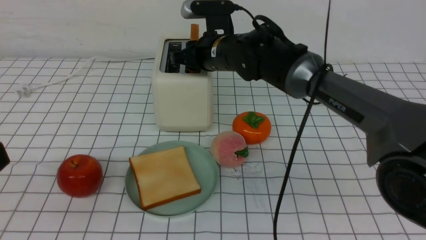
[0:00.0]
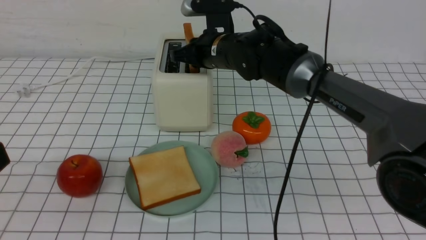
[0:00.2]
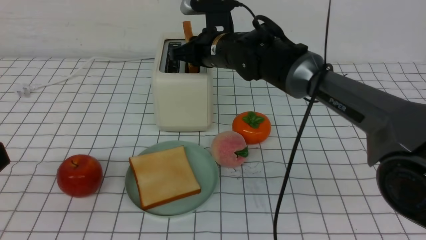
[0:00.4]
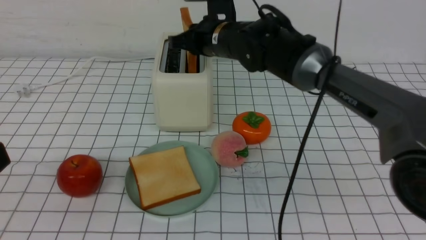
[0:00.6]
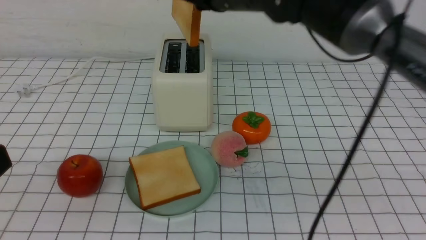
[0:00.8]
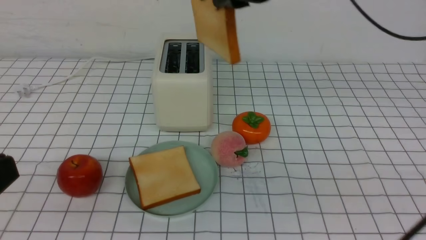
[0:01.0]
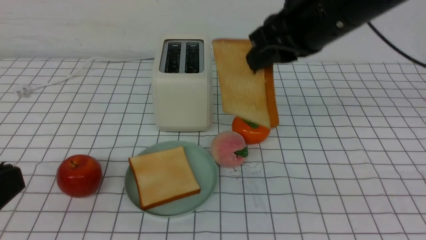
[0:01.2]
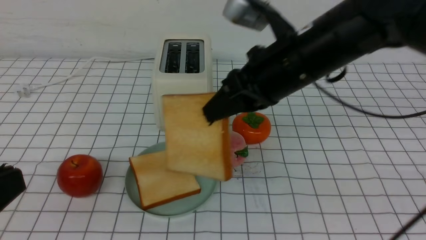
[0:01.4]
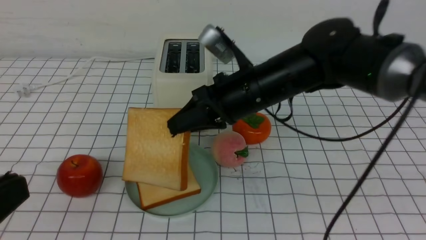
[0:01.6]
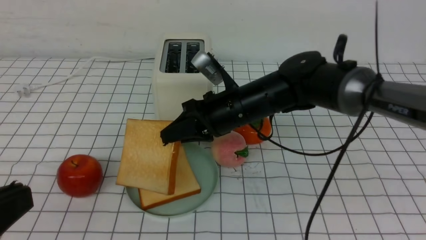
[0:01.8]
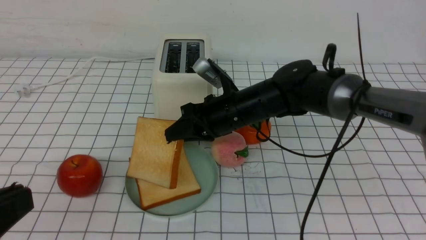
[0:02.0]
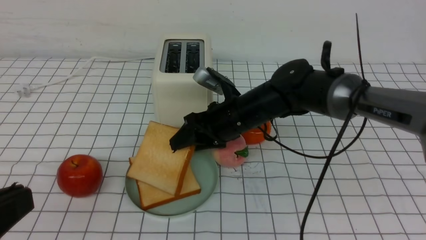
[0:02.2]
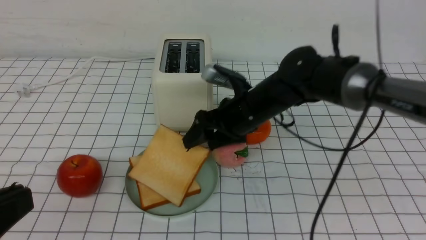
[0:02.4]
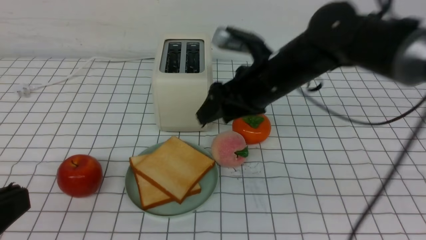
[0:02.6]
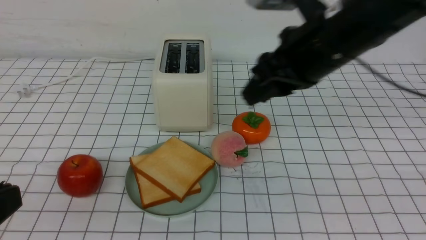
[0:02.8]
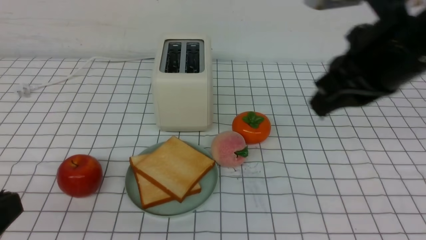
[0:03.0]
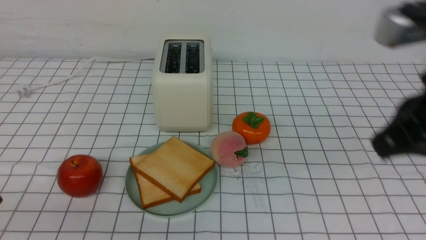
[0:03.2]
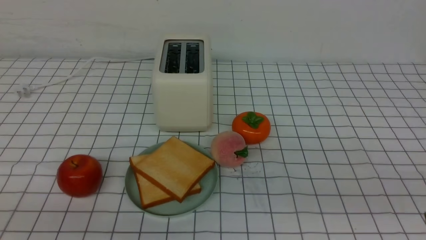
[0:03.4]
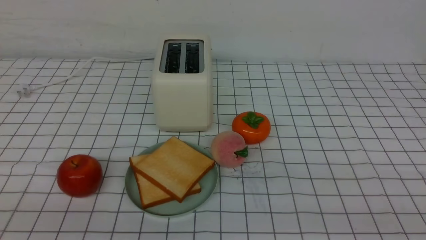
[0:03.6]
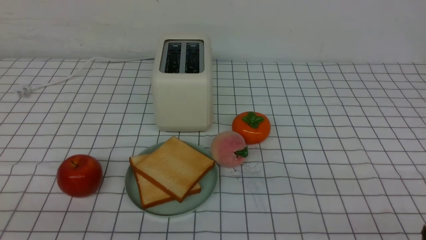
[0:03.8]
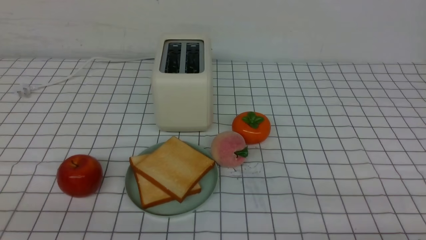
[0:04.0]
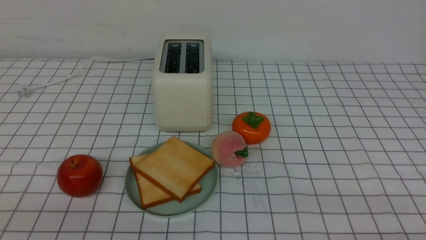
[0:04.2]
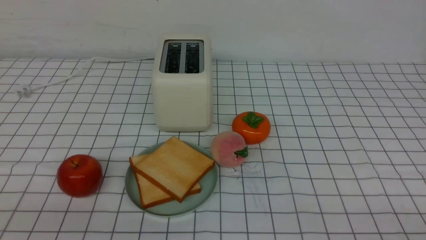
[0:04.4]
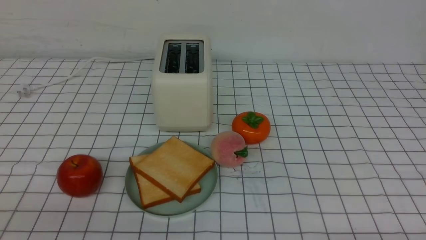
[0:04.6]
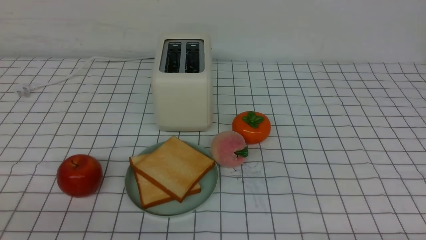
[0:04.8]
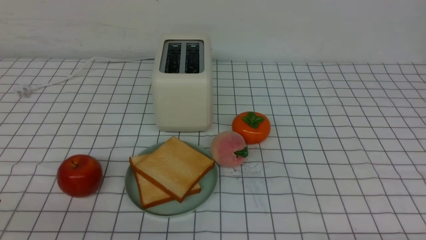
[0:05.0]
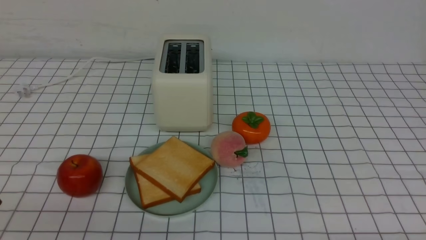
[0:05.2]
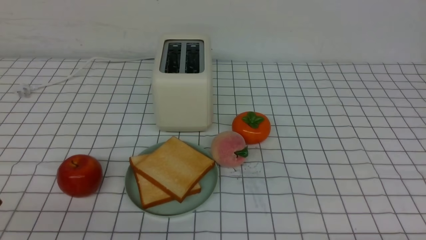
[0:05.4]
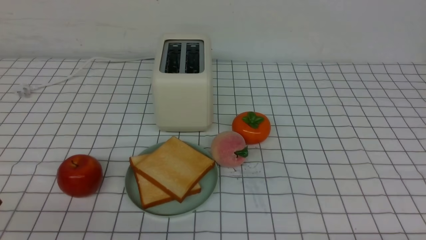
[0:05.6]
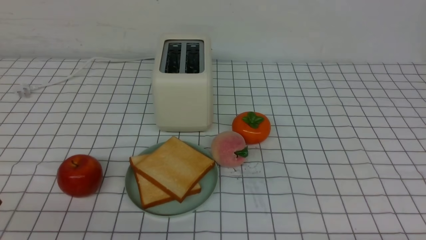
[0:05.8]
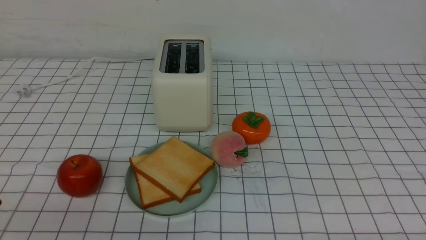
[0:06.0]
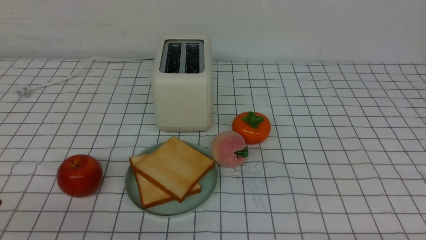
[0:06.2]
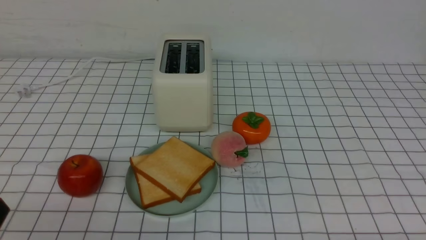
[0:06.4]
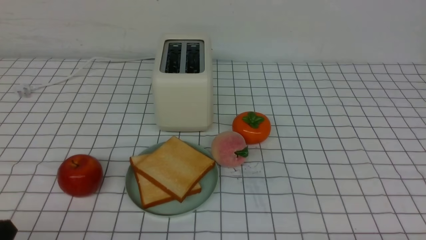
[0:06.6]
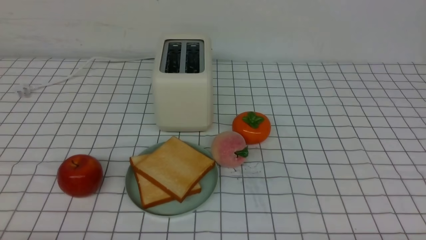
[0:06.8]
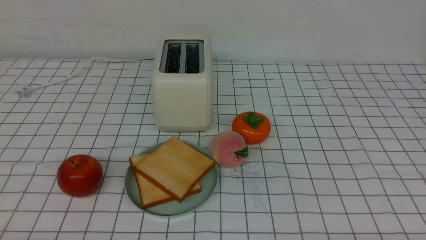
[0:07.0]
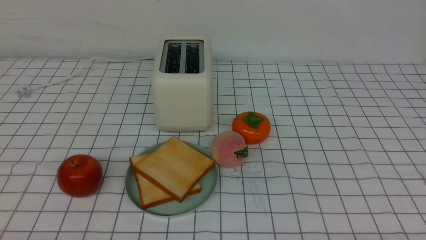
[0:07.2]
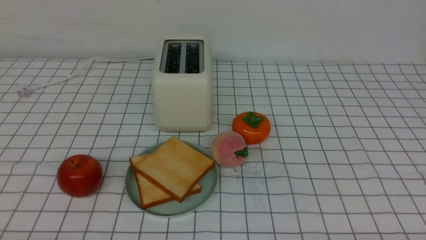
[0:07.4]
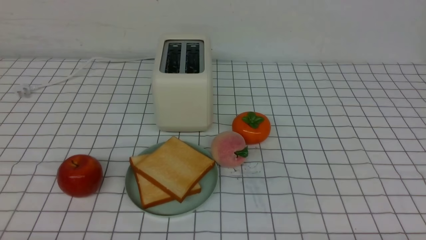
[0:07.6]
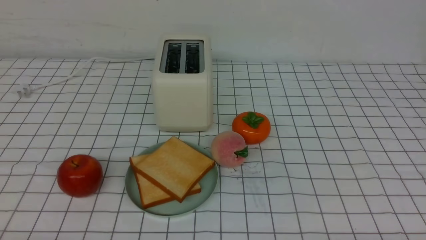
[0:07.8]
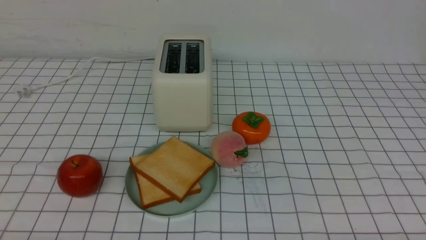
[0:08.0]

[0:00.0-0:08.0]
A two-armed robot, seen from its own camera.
Task of the whole recording: take toasted bread from bread machine on white checkered table place on plate.
Step, 0:00.8 to 0:02.6: use the right arm to put a slice of bread into the plate.
0:00.0 to 0:01.6: The right gripper moves backward, roughly 10 cm.
0:01.6 to 0:03.2: The right gripper is displaced backward, to the right and upward by approximately 25 cm, and opens and closes again. Meanwhile the left gripper heads downward, covering some 5 cm.
0:03.2 to 0:04.8: The right gripper shifts approximately 25 cm downward, backward and to the right.
0:06.4 to 0:08.0: The left gripper shifts approximately 5 cm downward.
